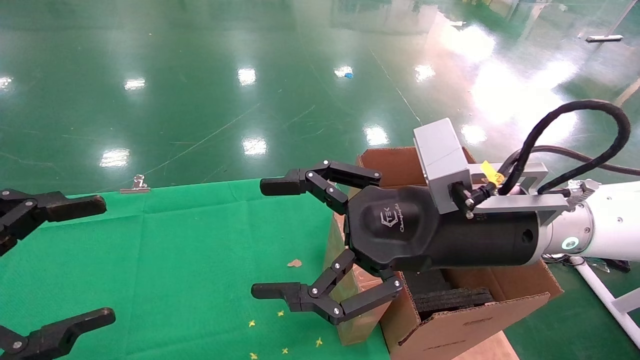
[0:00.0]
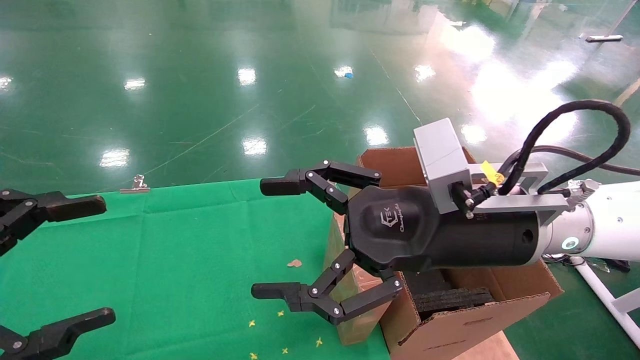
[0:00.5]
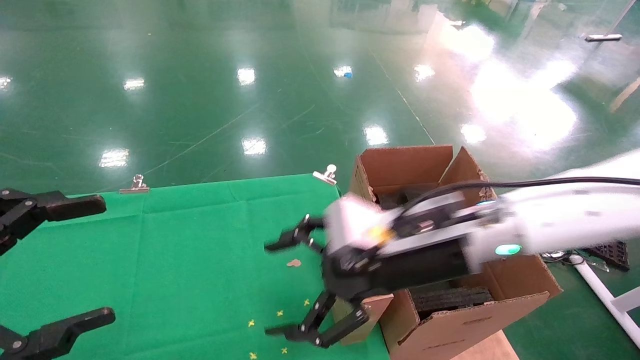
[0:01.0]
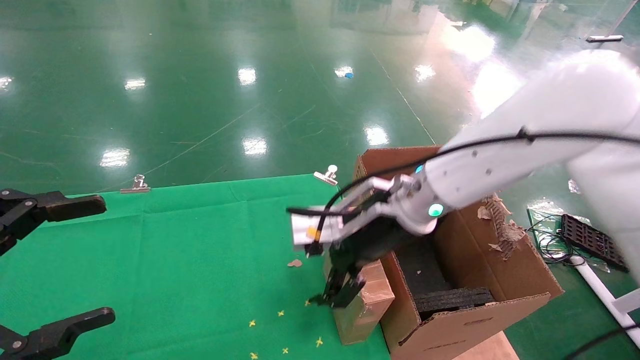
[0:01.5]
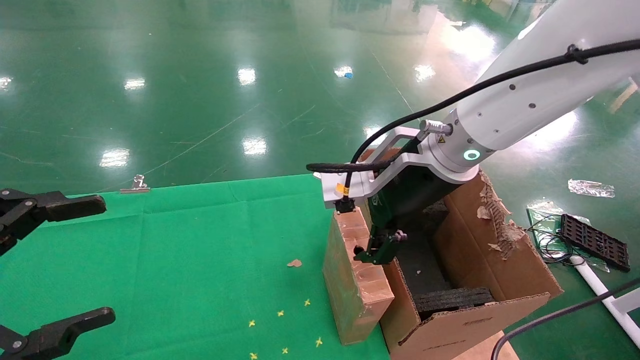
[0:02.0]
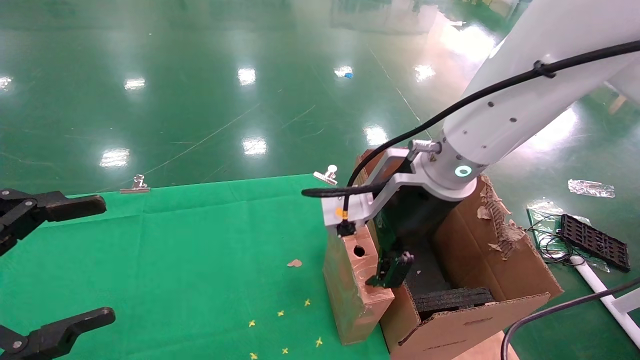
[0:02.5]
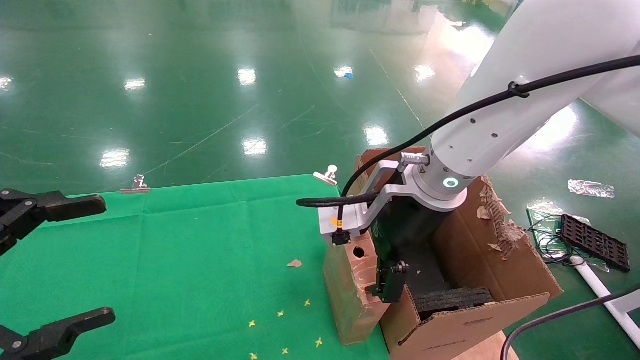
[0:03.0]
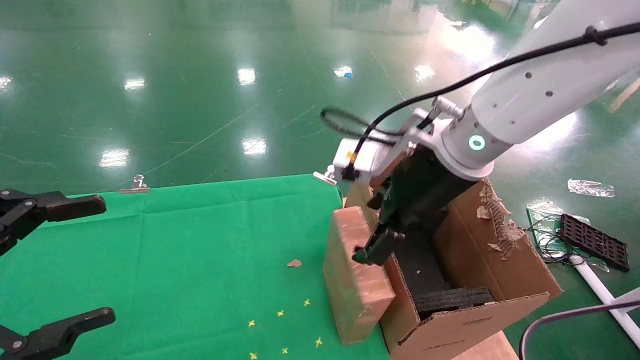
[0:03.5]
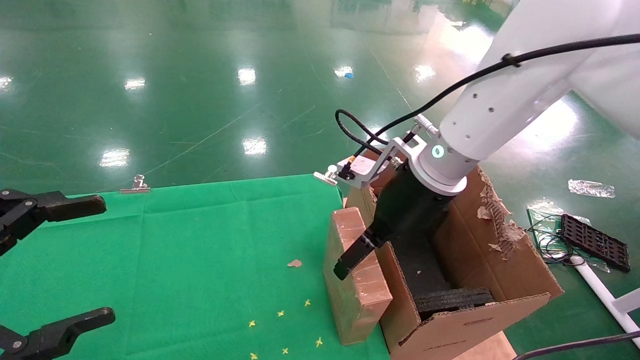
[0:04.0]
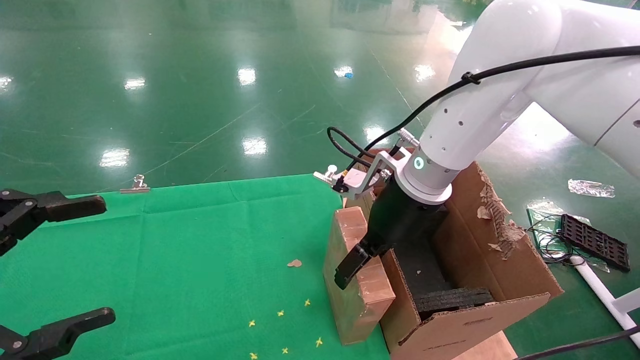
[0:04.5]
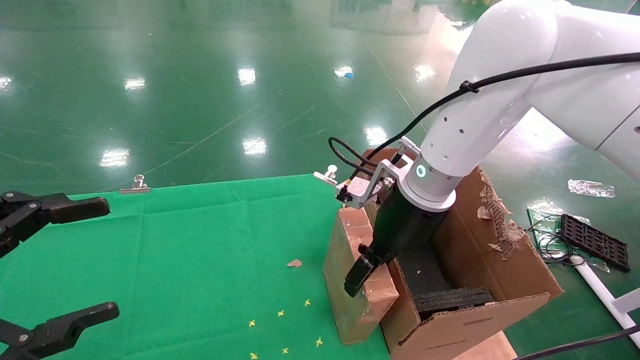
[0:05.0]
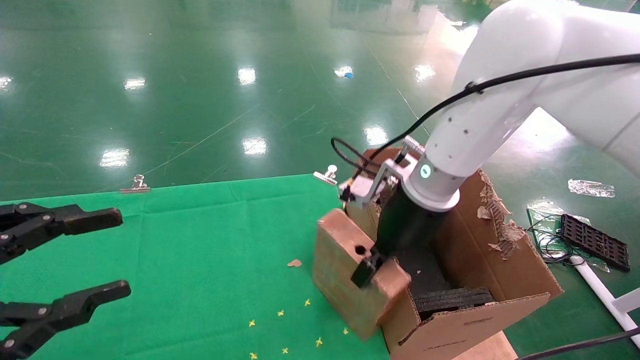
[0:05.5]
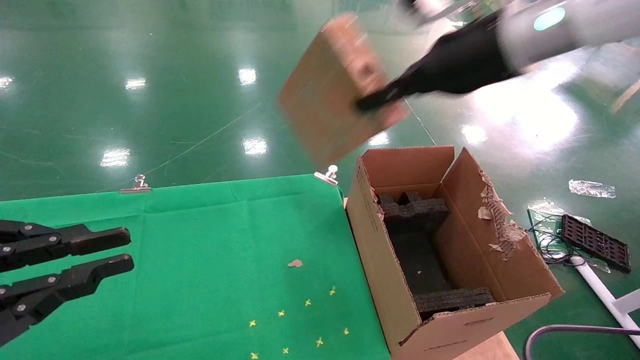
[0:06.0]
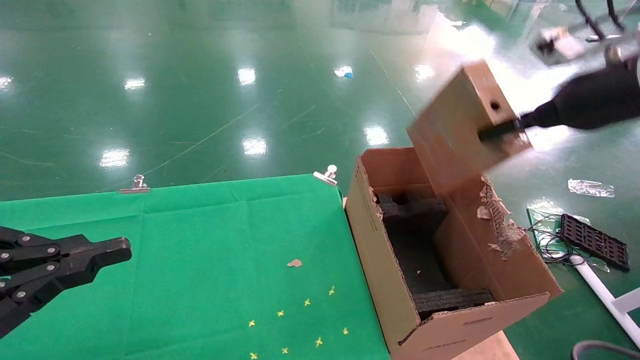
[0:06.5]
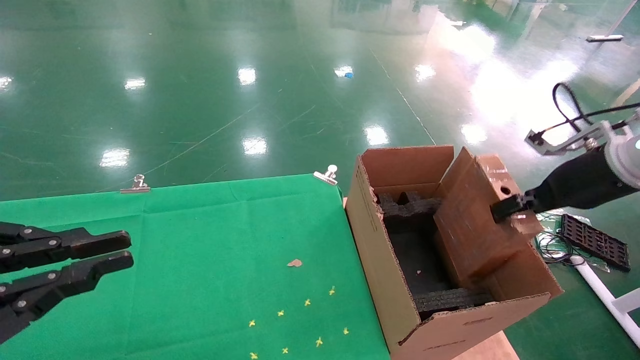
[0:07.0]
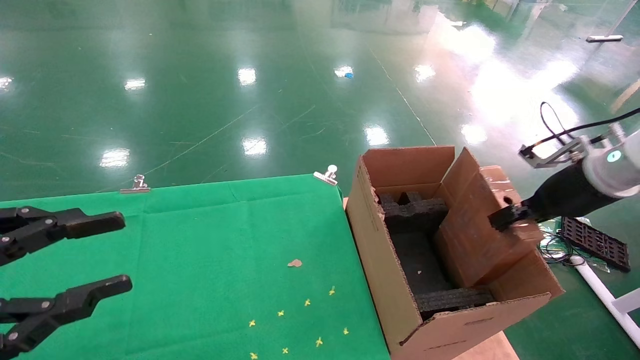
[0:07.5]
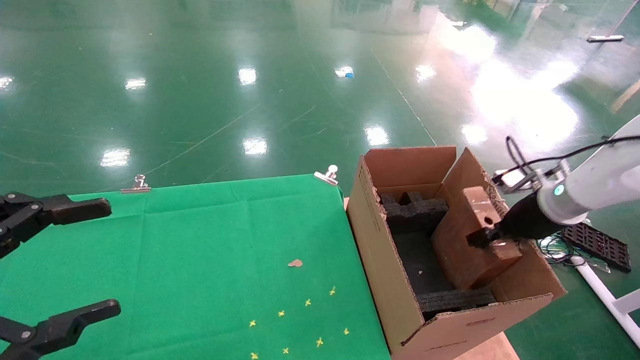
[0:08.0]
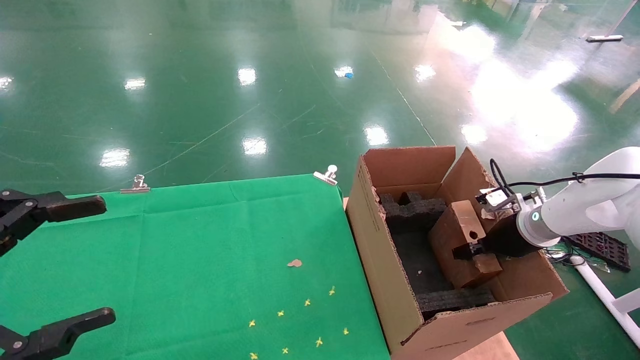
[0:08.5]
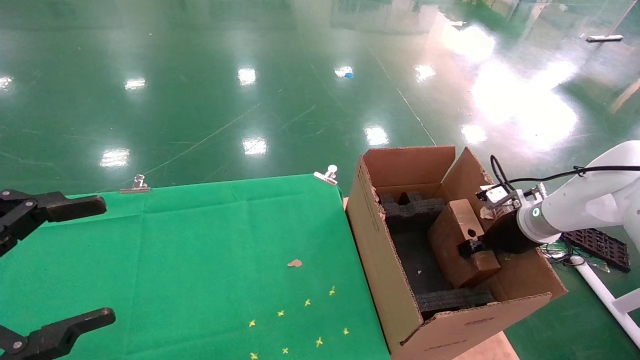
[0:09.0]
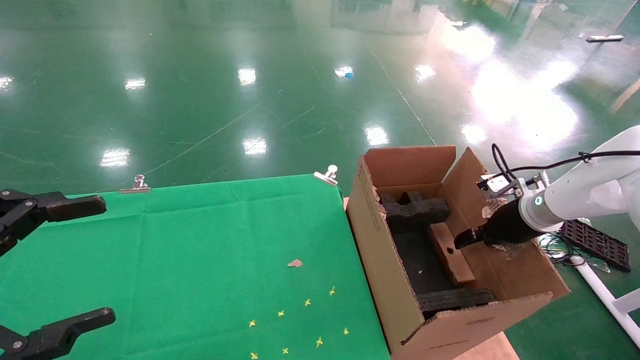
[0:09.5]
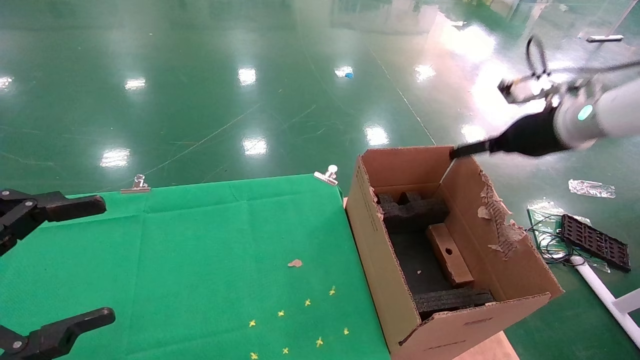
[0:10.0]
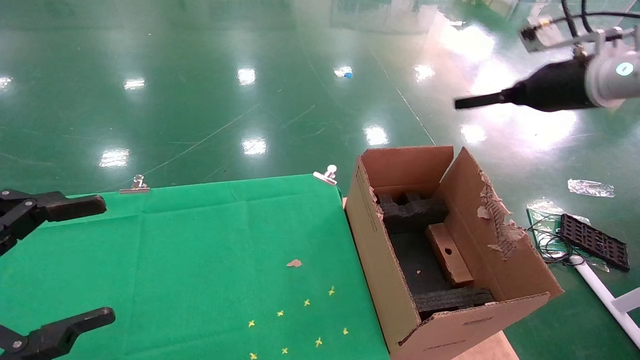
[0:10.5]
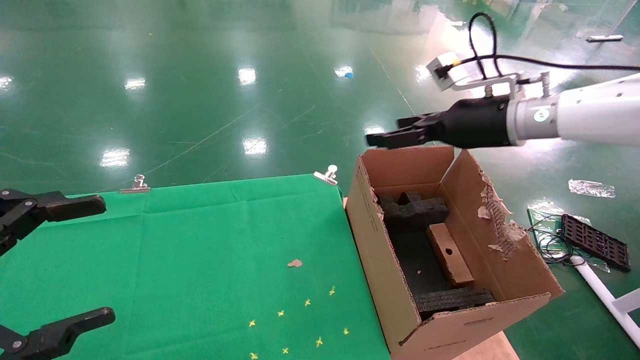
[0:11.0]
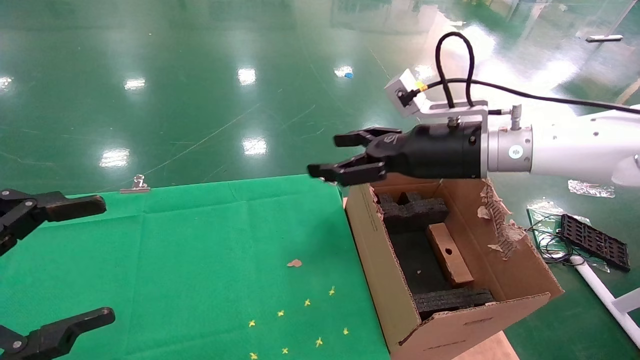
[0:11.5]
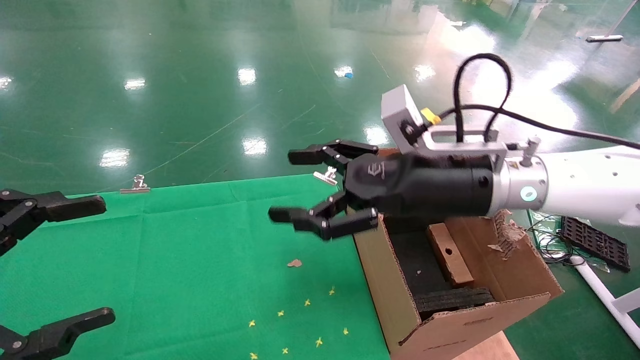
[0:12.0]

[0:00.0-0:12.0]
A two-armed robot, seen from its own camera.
Task of the whole recording: using a robotic arm to pick up a cardboard box and palace it the carton.
Step, 0:01.0 to 0:05.0: Pick up the mouse and the power cord paper box.
Step, 0:05.5 to 0:09.5: Place the mouse and the power cord paper box into the container.
0:00.0 to 0:02.0: The right gripper travels forward by roughly 10 cm.
0:04.0 to 0:06.0: The left gripper closes its fingers; the right gripper shifts roughly 15 cm upward and to the right, and closes its fingers.
0:06.0 to 0:08.0: The left gripper opens, while the right gripper travels downward and to the right by some 30 cm.
0:08.0 to 0:10.0: The right gripper shifts about 10 cm upward, and opens up.
0:10.0 to 0:12.0: The right gripper travels to the left and backward by roughly 25 cm.

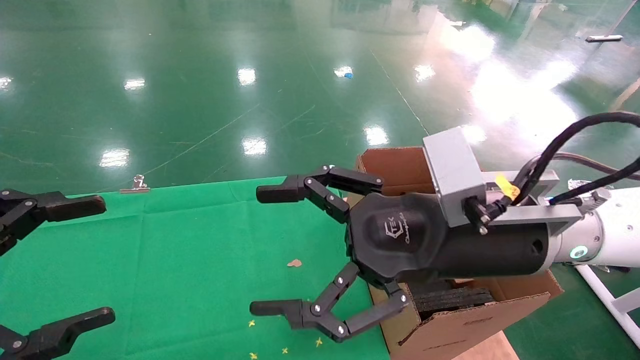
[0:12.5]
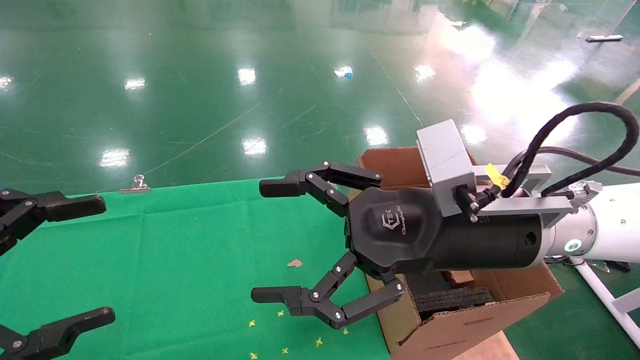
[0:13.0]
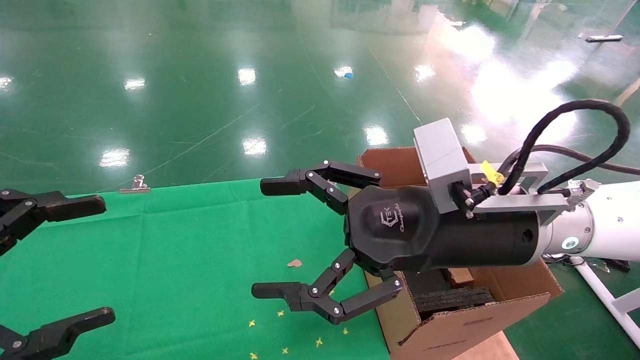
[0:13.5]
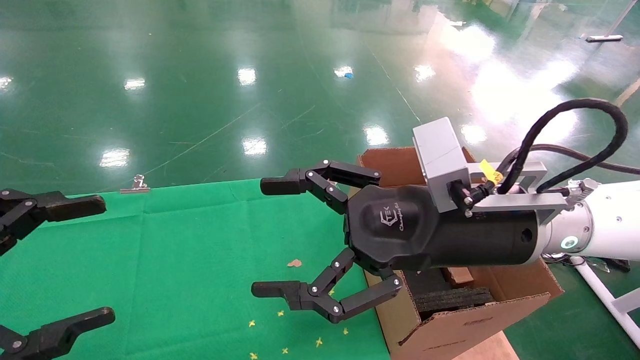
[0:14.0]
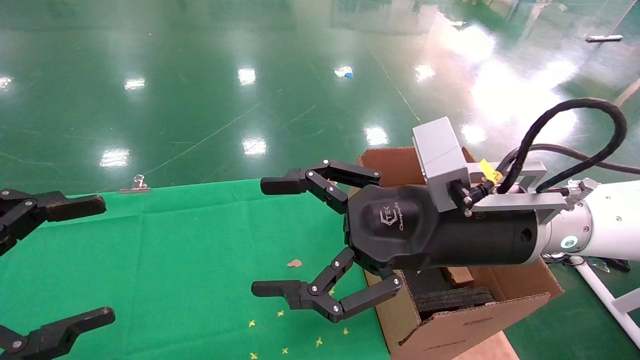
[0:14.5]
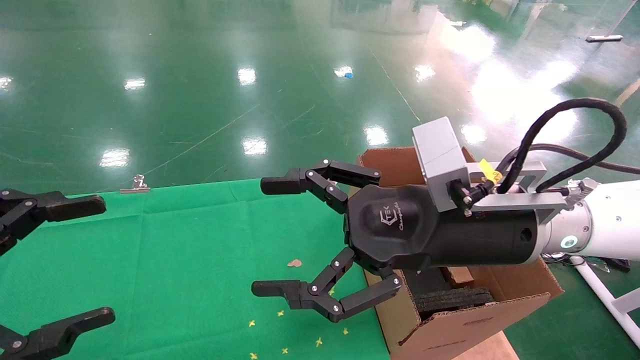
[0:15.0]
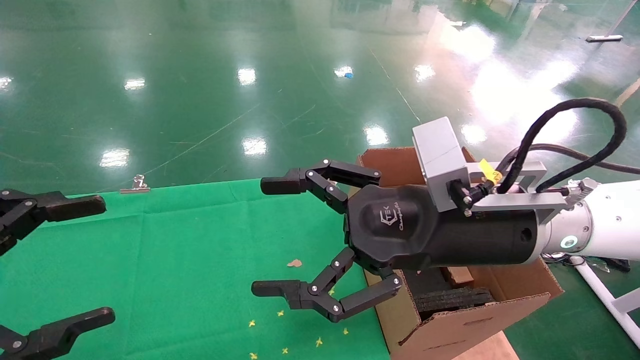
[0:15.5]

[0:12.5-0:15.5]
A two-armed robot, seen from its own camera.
Task of the whole recording: using a robotic arm to pick up a cardboard box and palace it the carton.
0:12.5 to 0:15.5: Both grippers stay put.
